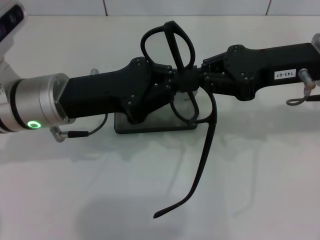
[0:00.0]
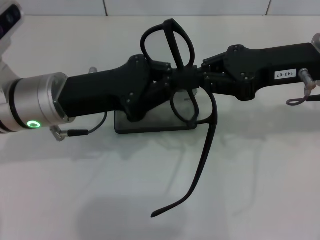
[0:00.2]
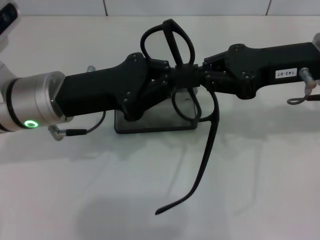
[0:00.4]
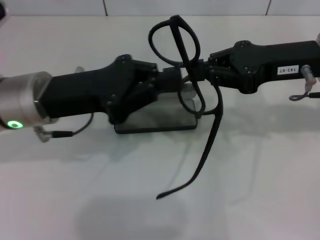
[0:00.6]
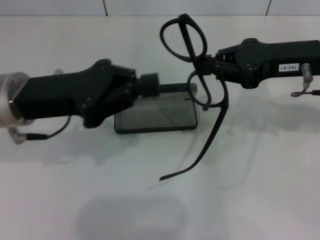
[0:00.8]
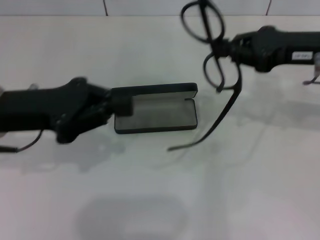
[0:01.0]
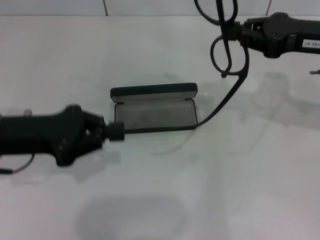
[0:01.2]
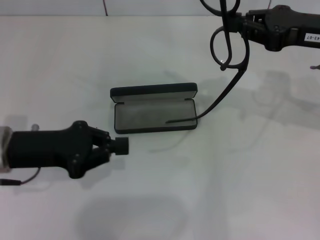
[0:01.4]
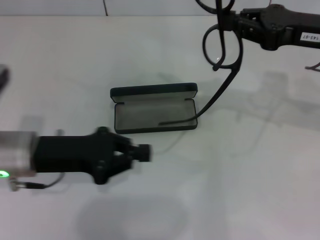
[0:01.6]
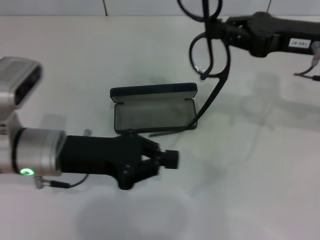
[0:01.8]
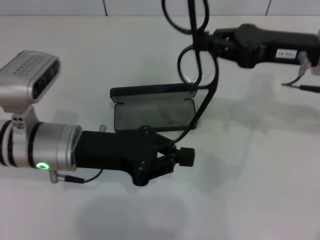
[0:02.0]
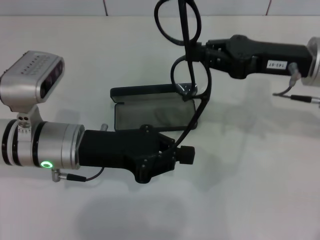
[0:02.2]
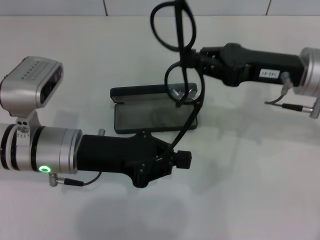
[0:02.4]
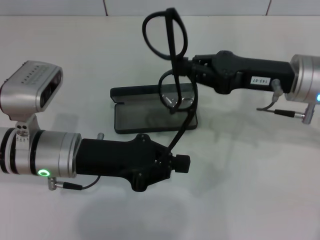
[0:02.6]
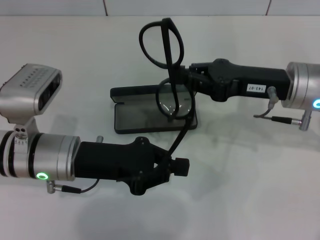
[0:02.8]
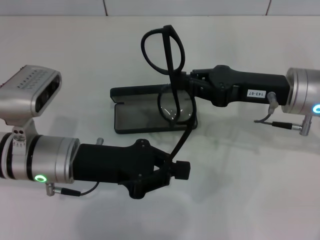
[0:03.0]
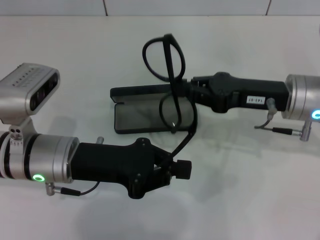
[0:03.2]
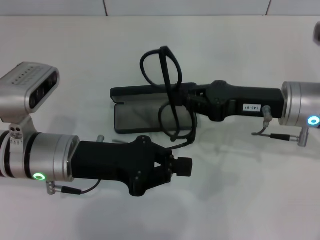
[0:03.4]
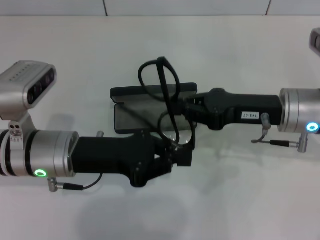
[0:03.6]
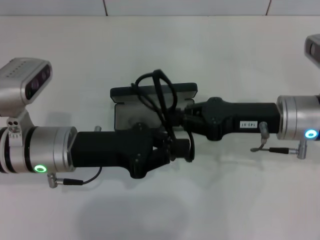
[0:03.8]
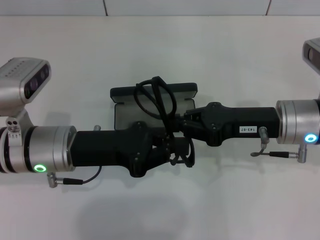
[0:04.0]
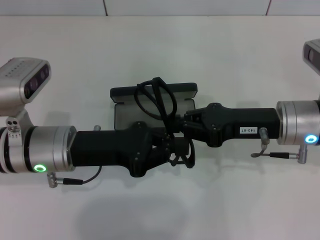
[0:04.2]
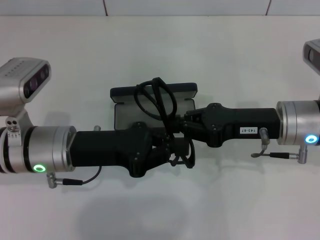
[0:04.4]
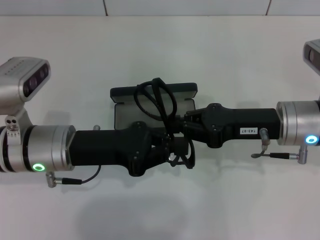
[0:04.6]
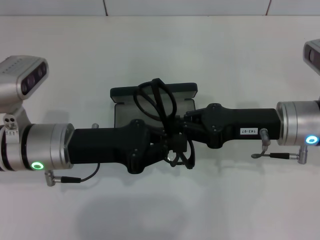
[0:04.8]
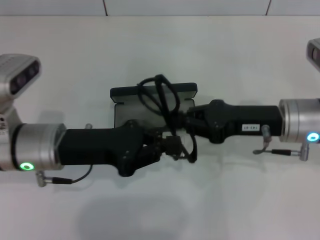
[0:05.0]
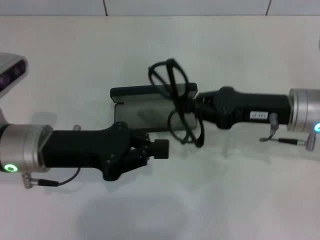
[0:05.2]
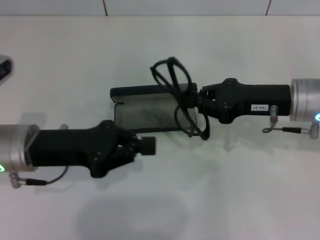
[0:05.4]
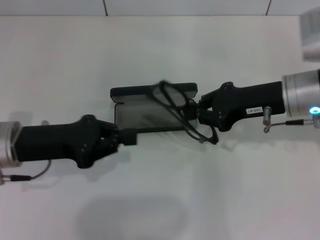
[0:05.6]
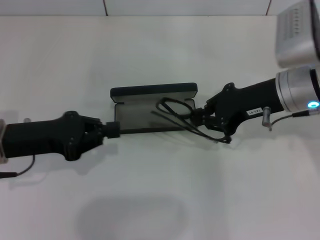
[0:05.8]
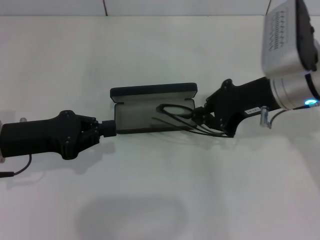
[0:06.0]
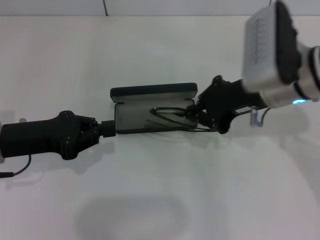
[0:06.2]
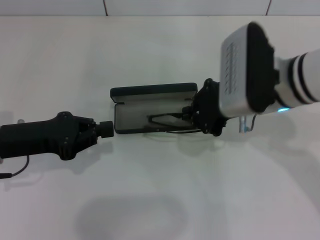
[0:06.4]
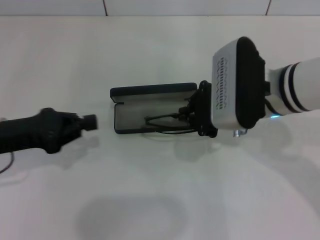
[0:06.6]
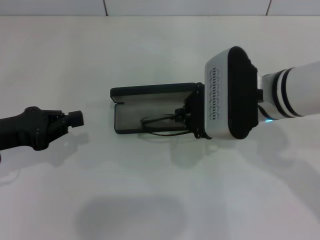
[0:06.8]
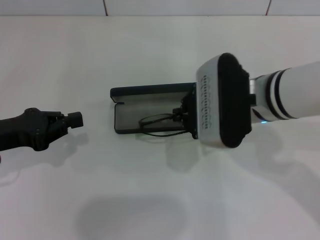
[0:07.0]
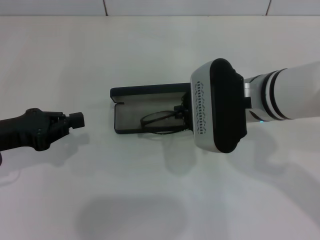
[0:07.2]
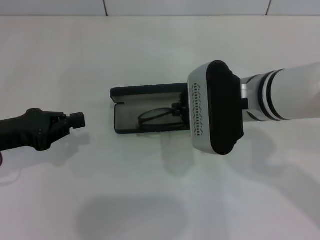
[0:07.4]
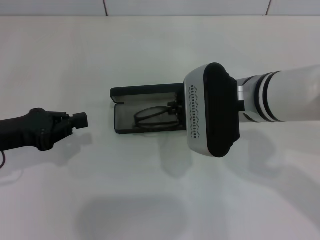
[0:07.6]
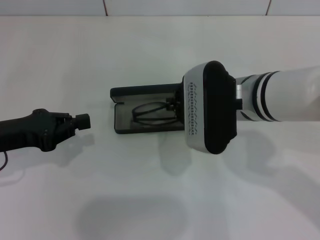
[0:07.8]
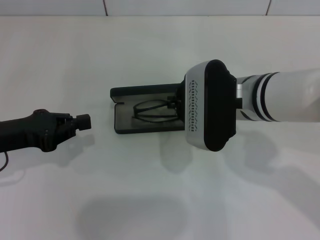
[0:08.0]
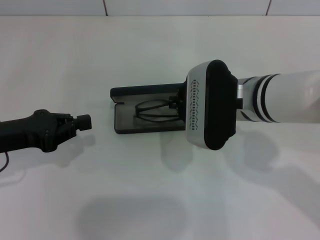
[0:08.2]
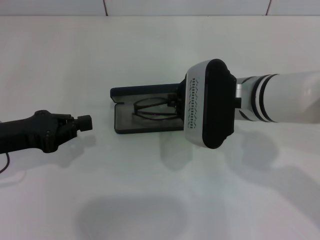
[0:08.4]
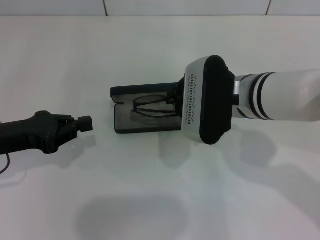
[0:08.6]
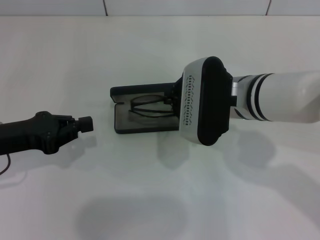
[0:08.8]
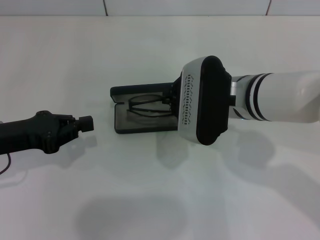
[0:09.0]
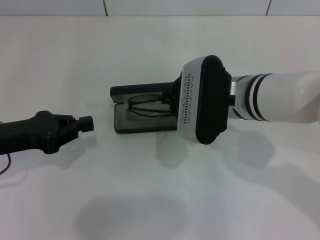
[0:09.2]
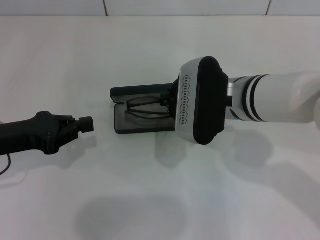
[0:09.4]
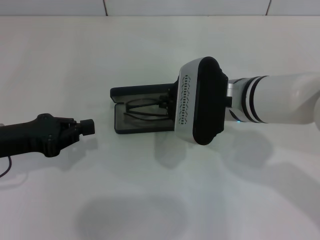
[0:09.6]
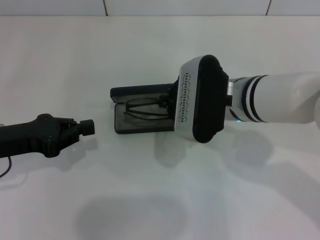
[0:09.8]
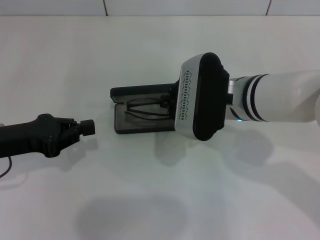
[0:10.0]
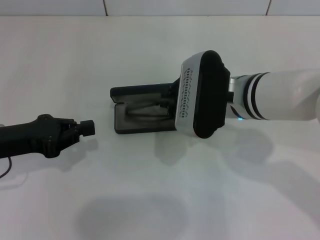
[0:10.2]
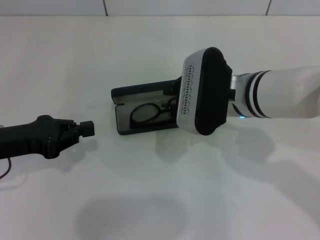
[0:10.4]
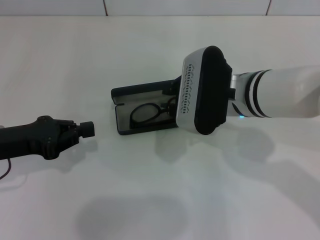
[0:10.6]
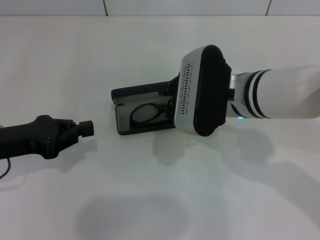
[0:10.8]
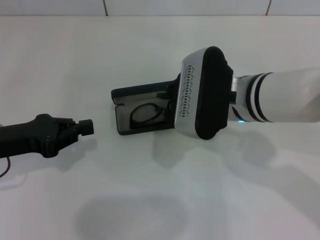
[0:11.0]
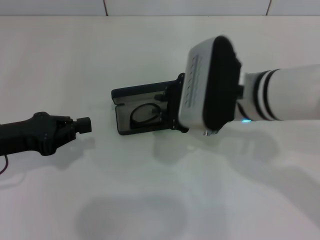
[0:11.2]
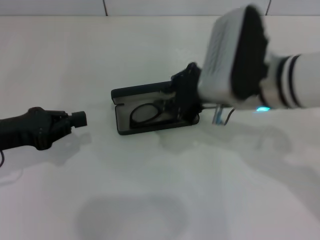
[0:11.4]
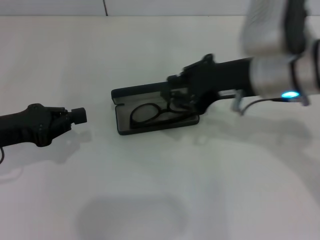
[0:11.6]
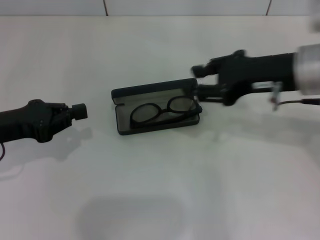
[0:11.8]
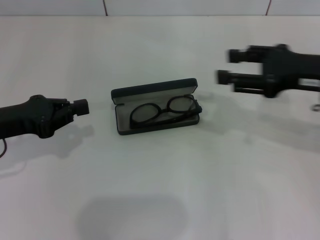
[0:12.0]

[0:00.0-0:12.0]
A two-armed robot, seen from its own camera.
Step, 0:00.0 to 0:04.8: Lift the glasses with your right hand.
Step, 0:05.2 to 0:10.4: Put the glasses into the case with your right hand.
0:00.0 to 0:01.6: The left gripper shifts some 5 cm to the left.
0:01.6 to 0:03.0: The right gripper travels downward and to the left by some 10 cm.
0:04.4 to 0:06.0: The left gripper heads to the left, covering approximately 10 cm. The right gripper is displaced upward by roughly 5 cm.
0:06.0 to 0:07.6: The right gripper is displaced to the left by about 5 cm.
0:07.6 to 0:09.0: The grippers stay close to where they were, moving slightly.
0:09.0 to 0:10.4: Both grippers stay about where they are.
0:10.4 to 0:12.0: The right gripper moves to the right, roughly 15 cm.

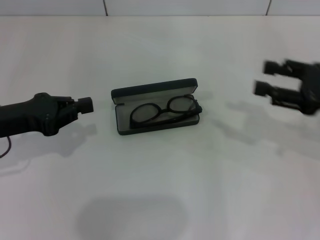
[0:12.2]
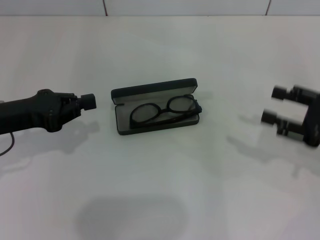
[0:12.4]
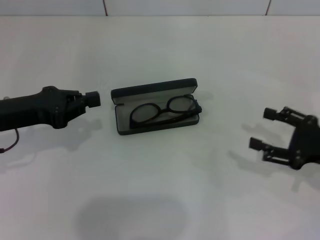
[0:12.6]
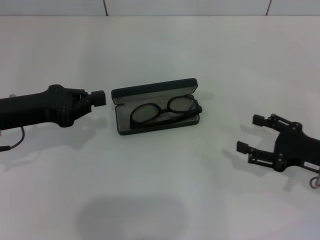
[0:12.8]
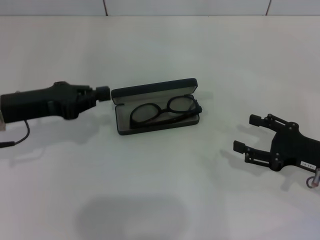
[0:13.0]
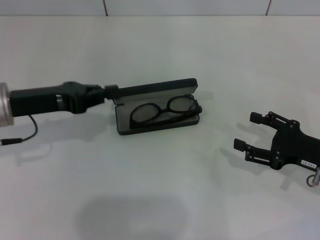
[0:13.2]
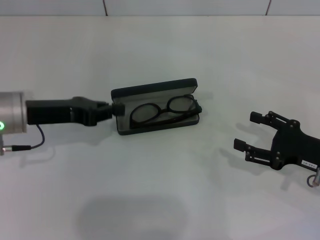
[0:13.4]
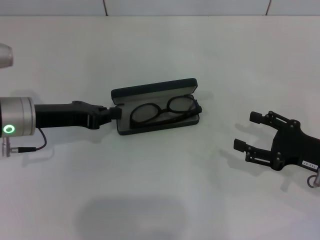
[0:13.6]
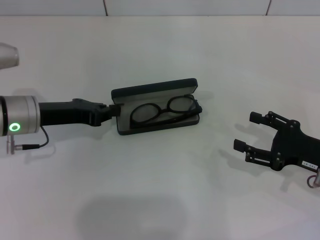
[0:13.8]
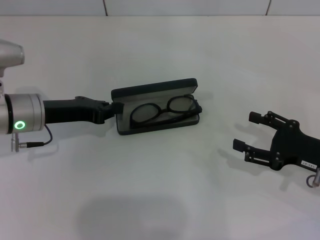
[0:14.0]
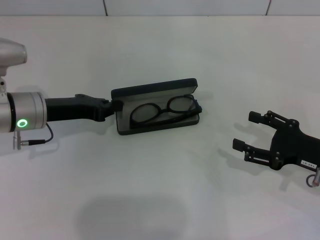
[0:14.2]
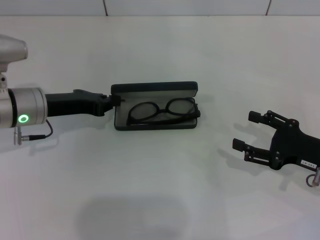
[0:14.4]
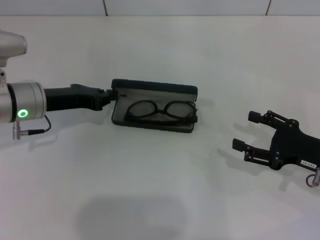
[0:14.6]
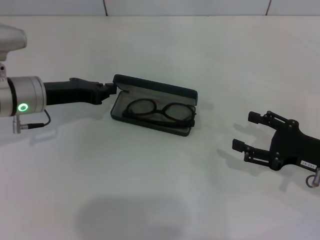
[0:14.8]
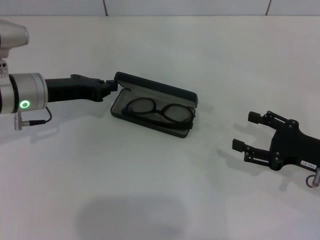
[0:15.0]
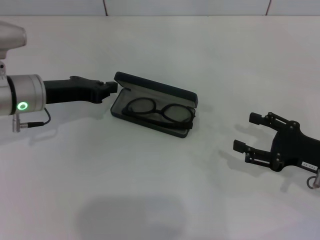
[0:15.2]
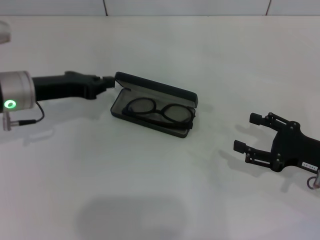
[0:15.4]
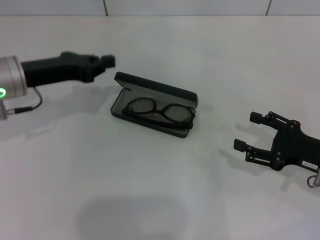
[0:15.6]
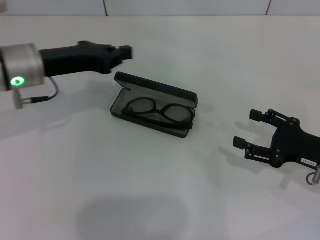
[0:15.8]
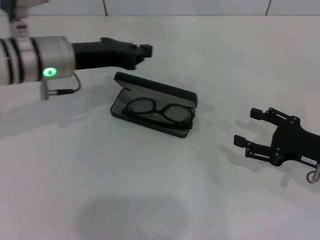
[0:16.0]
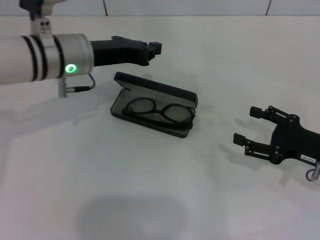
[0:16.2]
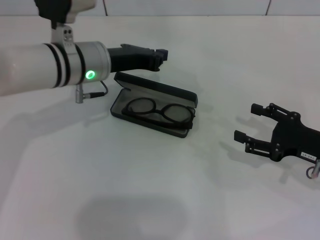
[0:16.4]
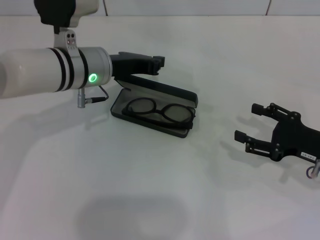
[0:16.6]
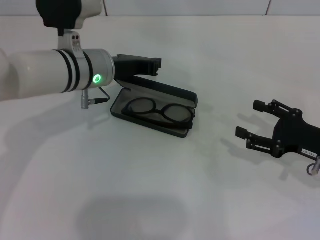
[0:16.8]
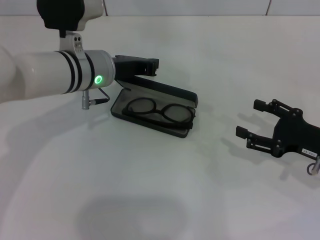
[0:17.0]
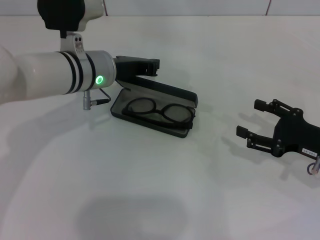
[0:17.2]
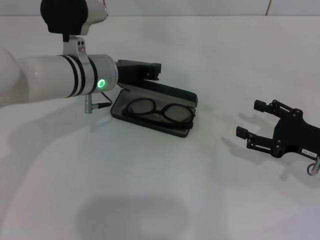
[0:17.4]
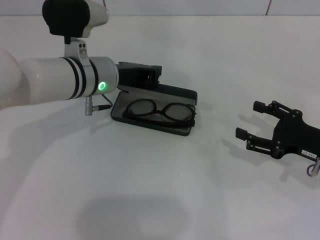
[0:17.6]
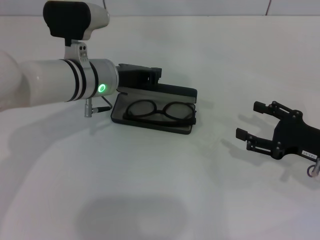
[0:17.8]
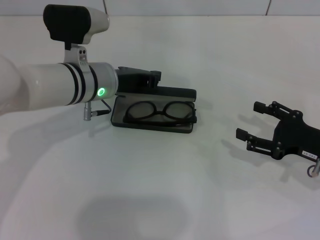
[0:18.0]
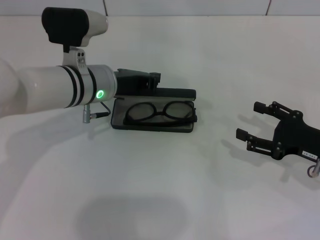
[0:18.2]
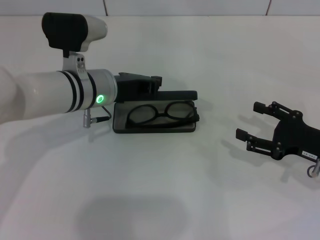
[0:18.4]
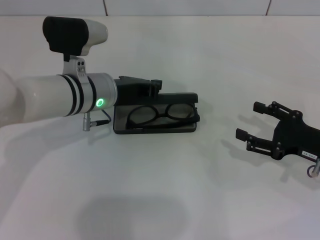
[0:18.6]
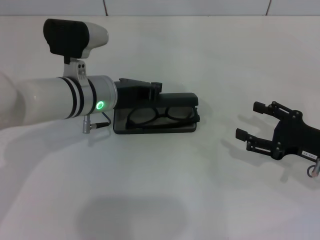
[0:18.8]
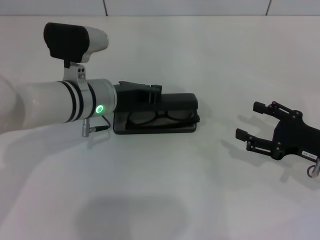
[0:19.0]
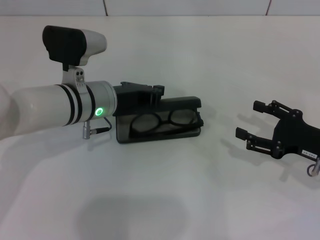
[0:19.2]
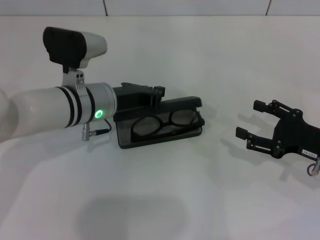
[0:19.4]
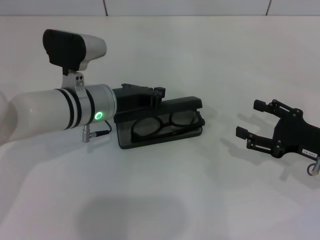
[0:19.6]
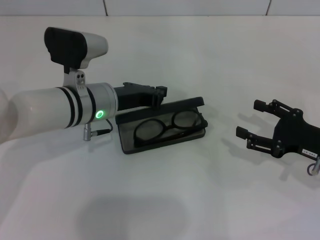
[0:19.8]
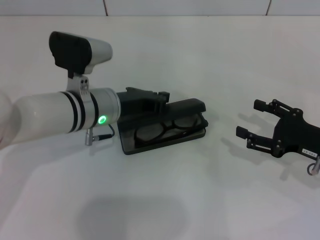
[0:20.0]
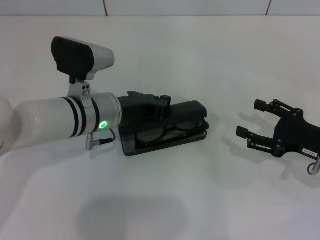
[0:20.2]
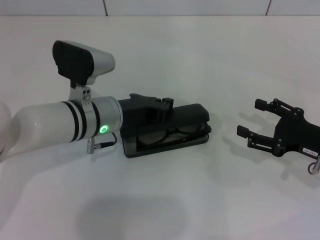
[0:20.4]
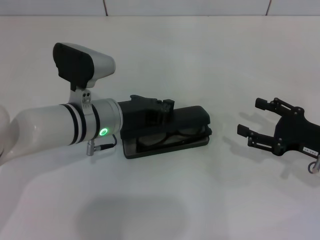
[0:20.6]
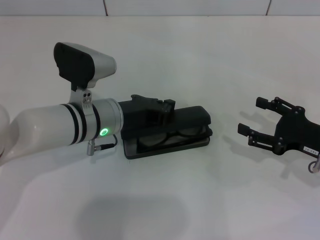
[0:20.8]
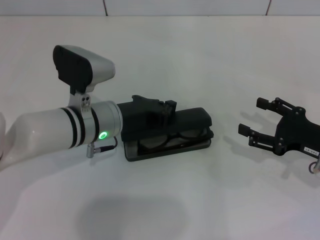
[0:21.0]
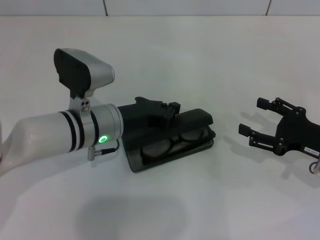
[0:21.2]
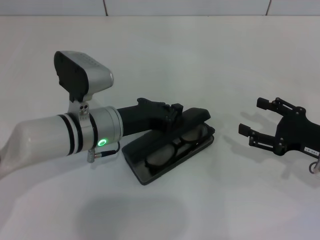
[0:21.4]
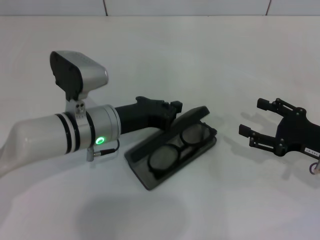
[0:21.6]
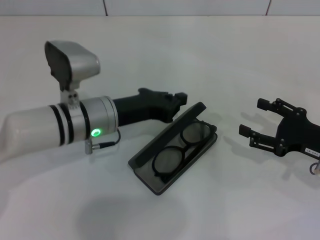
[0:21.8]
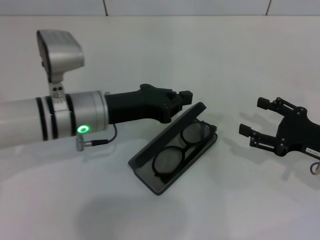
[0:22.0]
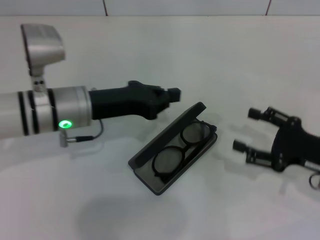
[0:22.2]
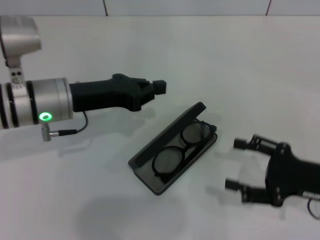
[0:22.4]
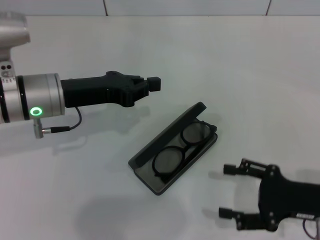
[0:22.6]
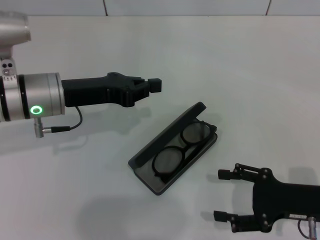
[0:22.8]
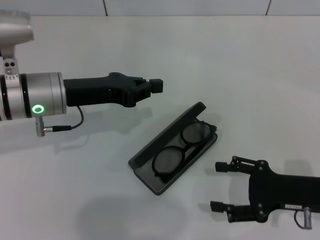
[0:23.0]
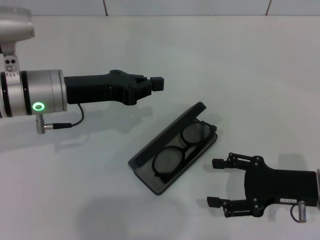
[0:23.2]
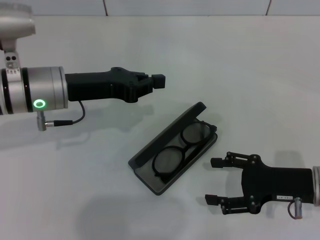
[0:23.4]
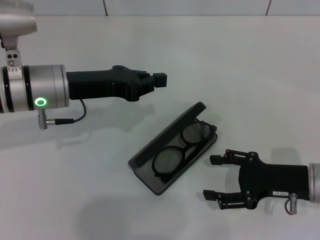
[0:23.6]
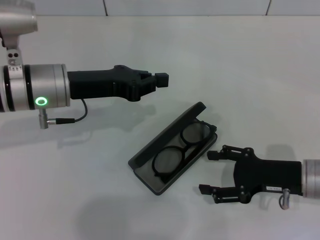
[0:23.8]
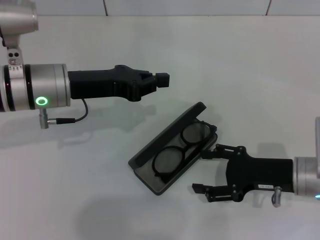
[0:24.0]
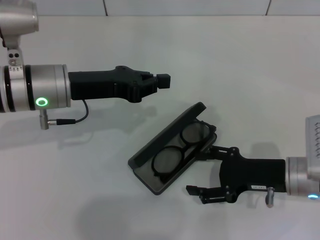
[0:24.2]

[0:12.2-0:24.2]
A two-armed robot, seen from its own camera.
0:12.2 to 0:13.8: The right gripper shifts about 10 cm downward; the left gripper heads forward, covering about 5 cm.
0:13.8 to 0:15.2: The grippers make only small movements.
0:15.2 to 0:16.6: The left gripper heads to the right, covering approximately 10 cm.
0:16.6 to 0:19.8: There are only small adjustments of the grippers.
0:19.8 to 0:21.2: There are only small adjustments of the grippers.
0:21.2 to 0:22.6: The left gripper moves to the left and upward, some 10 cm; the right gripper travels backward by some 5 cm.
0:22.6 to 0:24.2: The right gripper moves to the left, some 5 cm.
